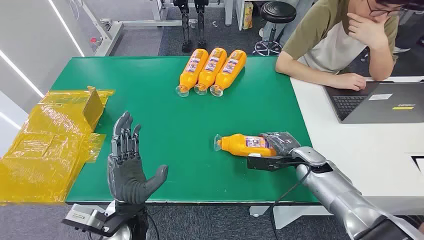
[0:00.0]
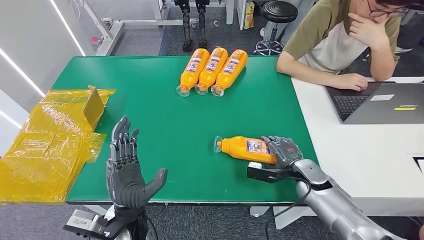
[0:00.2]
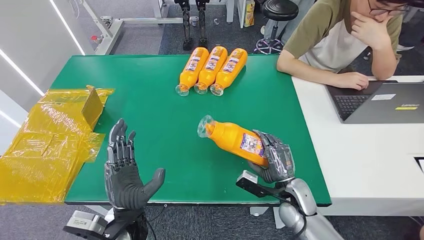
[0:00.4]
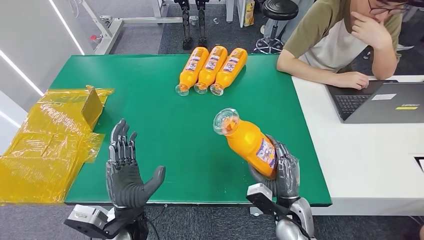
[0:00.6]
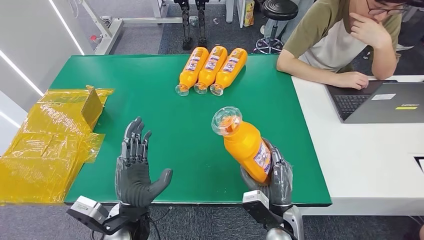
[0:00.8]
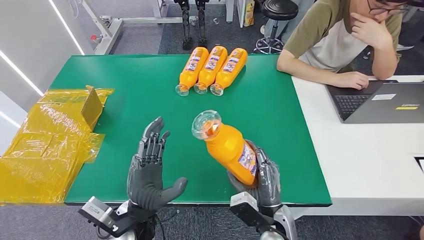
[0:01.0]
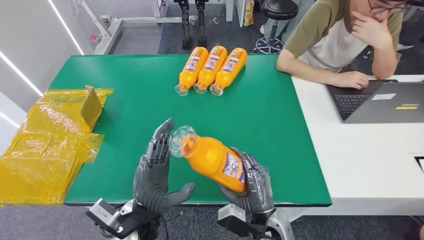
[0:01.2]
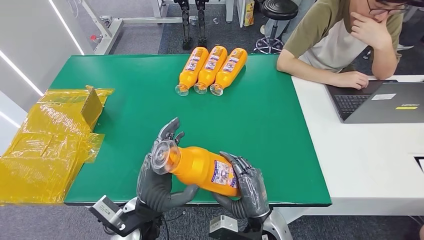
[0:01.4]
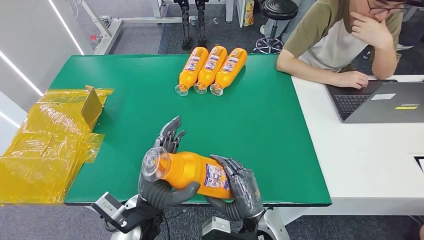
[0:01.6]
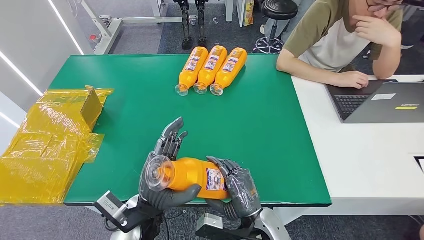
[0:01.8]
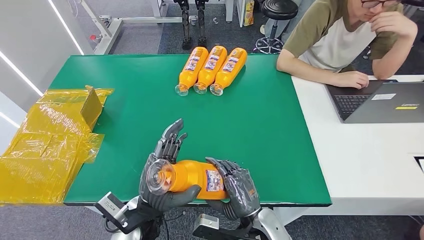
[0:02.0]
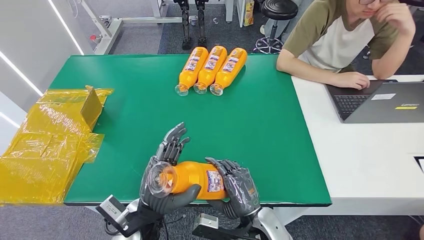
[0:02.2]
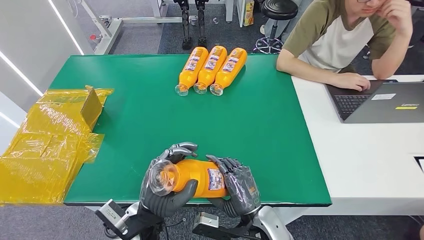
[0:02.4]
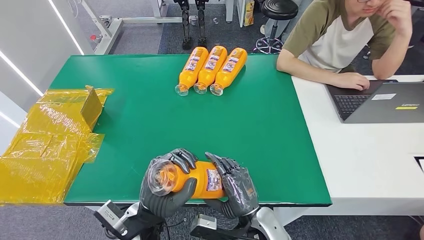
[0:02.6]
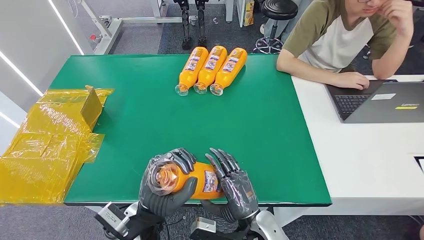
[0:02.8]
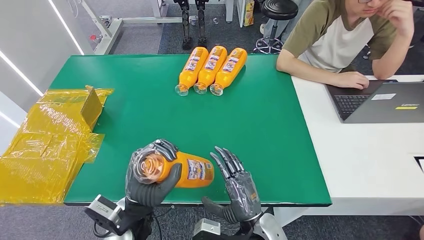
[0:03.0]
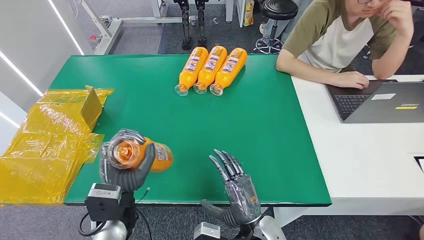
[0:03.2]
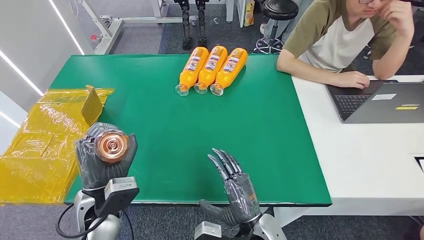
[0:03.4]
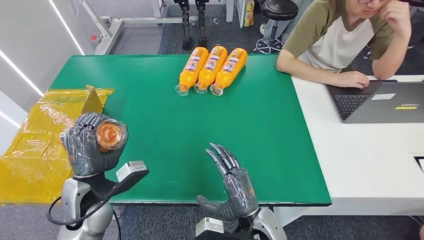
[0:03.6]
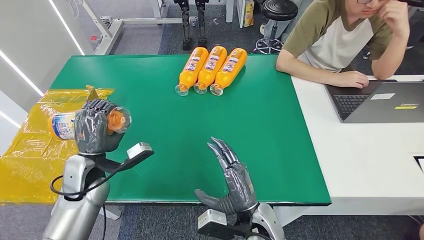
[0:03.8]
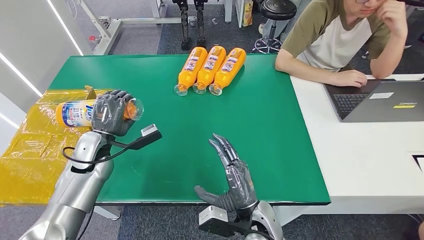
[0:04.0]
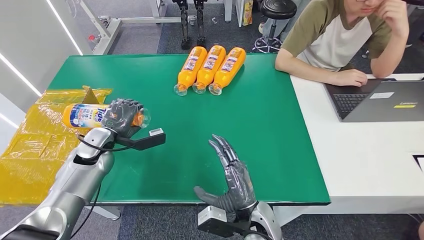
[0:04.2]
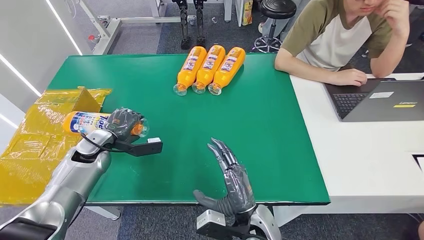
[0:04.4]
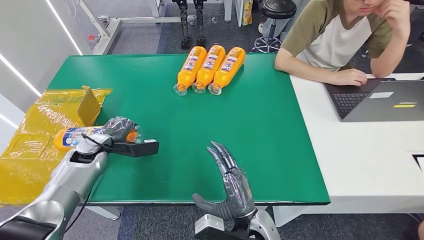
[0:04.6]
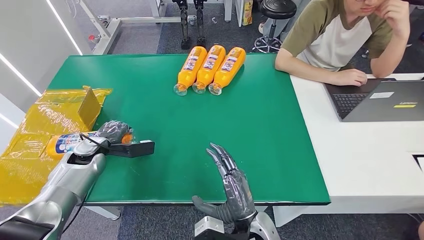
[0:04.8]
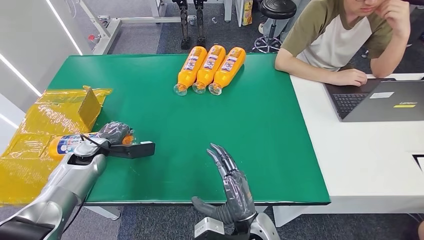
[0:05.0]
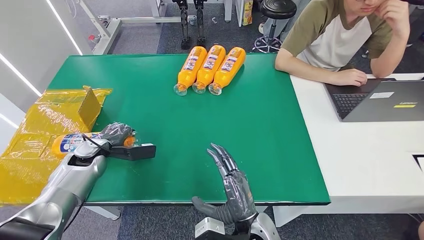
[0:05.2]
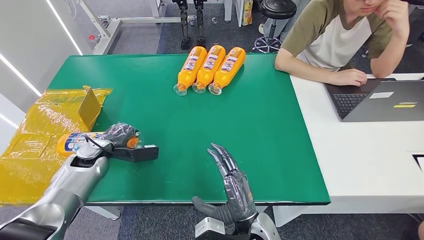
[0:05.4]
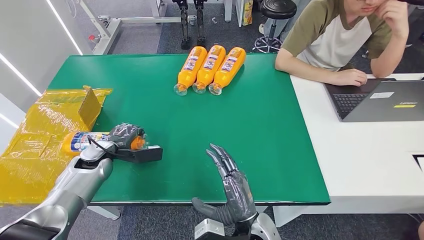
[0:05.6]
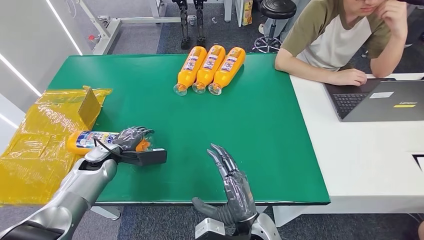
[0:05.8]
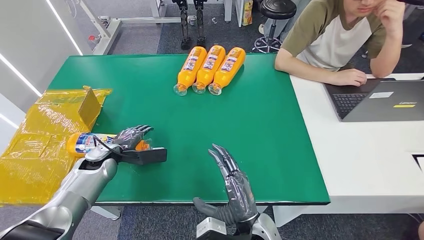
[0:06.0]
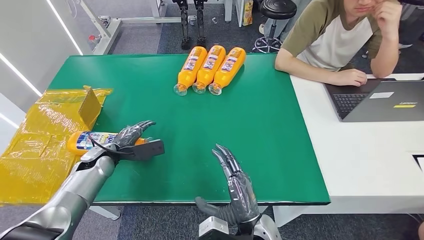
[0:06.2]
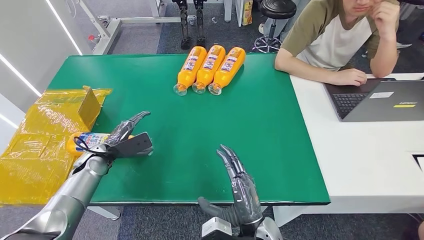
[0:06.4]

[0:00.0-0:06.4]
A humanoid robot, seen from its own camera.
Step, 0:00.0 to 0:01.6: Pick up the bottle from the table.
Step, 0:02.0 to 0:06.4: Turn the bottle to the front side.
0:03.2 to 0:04.8: The left hand goes some 25 cm to the left and forward.

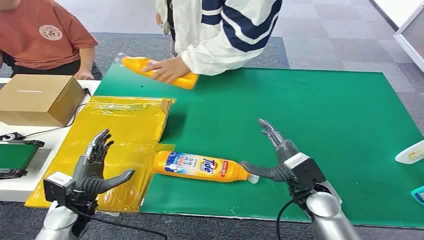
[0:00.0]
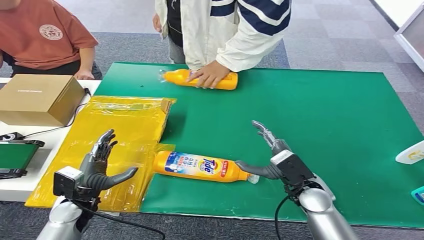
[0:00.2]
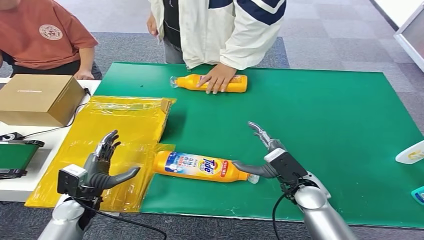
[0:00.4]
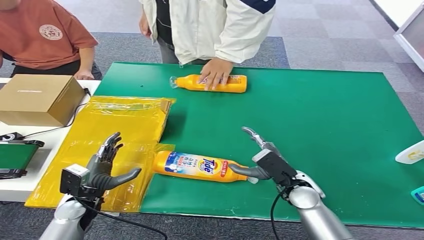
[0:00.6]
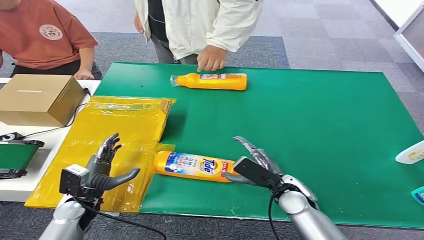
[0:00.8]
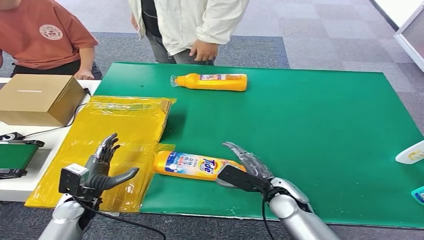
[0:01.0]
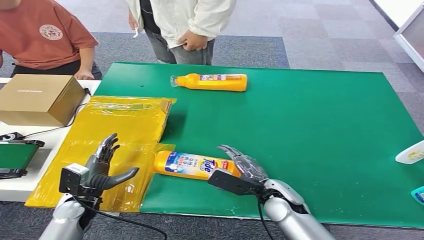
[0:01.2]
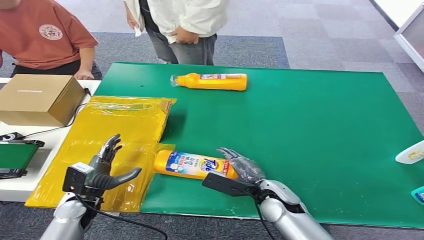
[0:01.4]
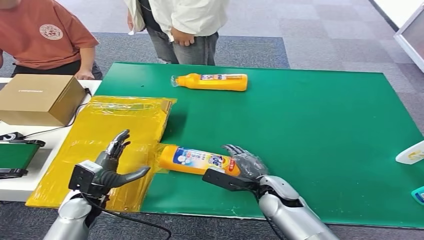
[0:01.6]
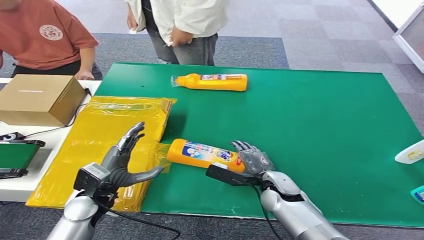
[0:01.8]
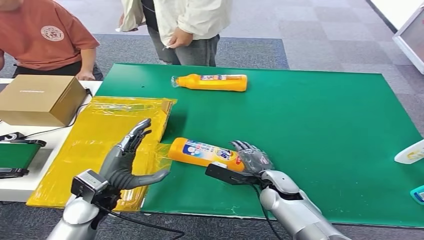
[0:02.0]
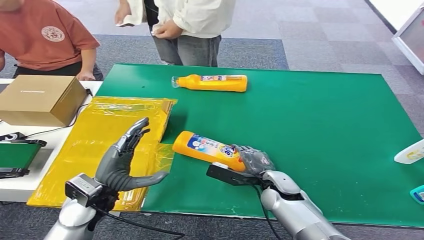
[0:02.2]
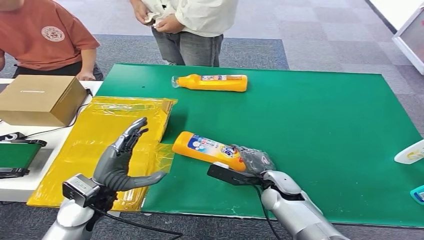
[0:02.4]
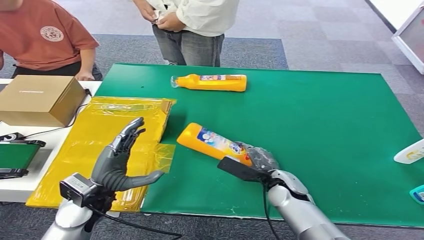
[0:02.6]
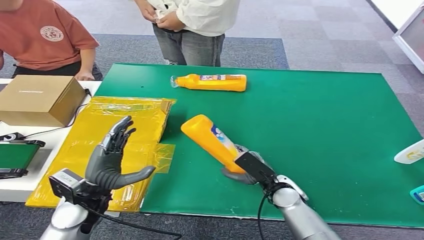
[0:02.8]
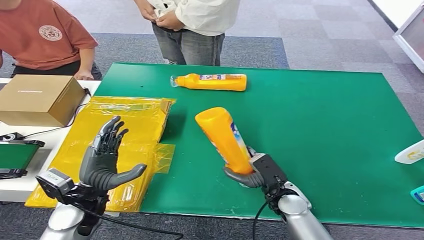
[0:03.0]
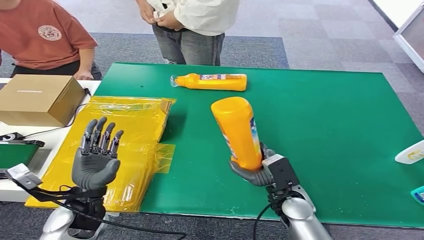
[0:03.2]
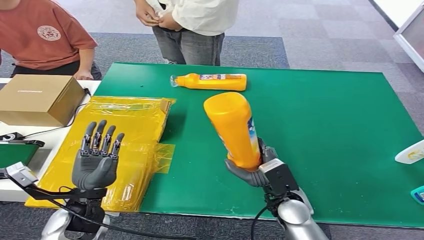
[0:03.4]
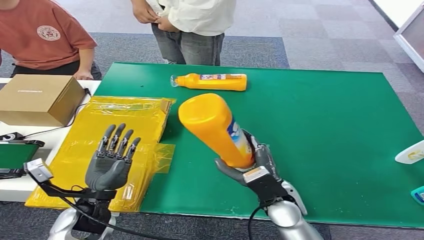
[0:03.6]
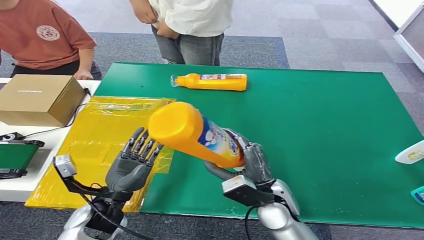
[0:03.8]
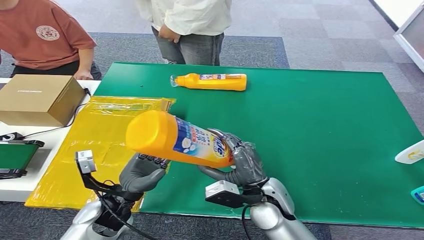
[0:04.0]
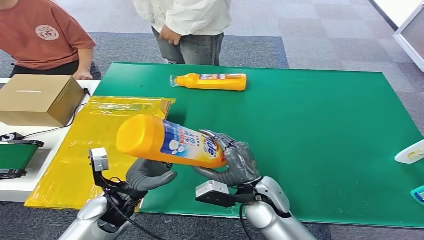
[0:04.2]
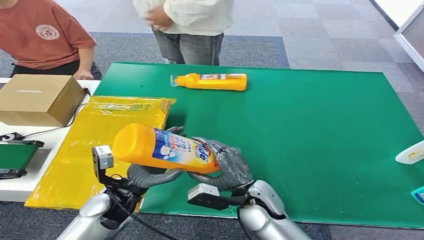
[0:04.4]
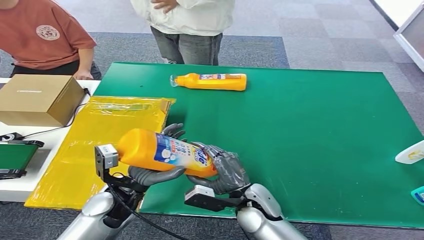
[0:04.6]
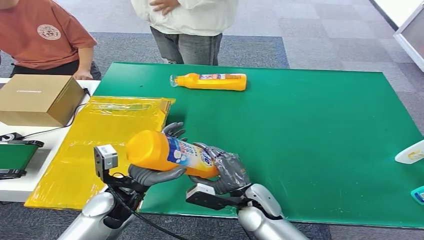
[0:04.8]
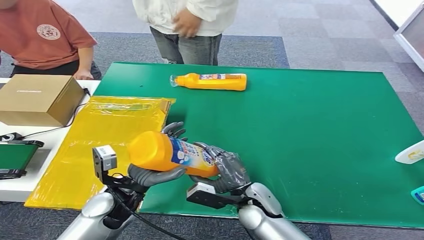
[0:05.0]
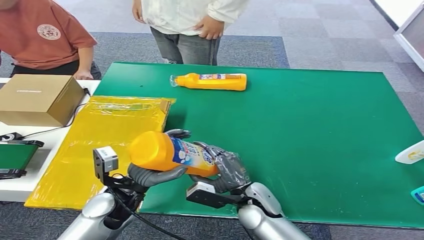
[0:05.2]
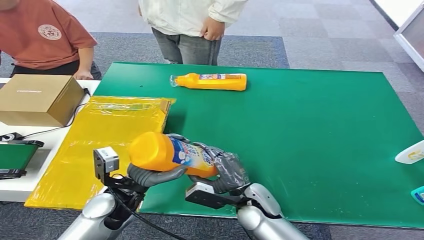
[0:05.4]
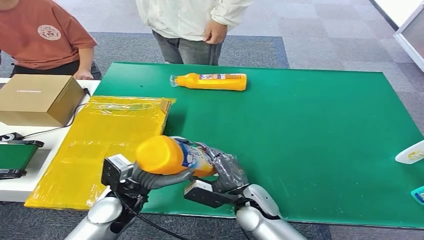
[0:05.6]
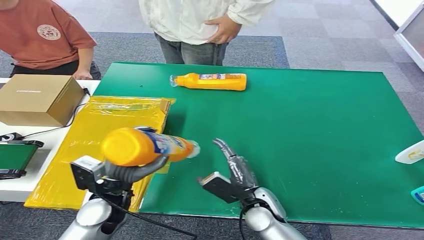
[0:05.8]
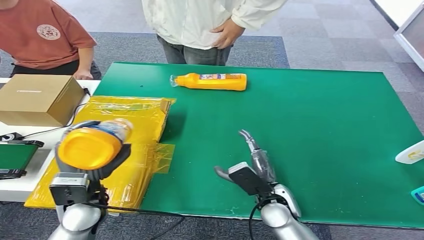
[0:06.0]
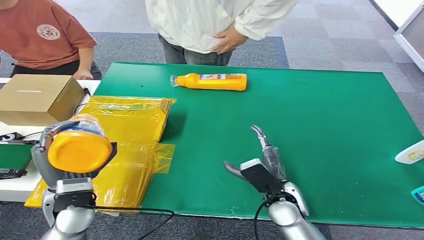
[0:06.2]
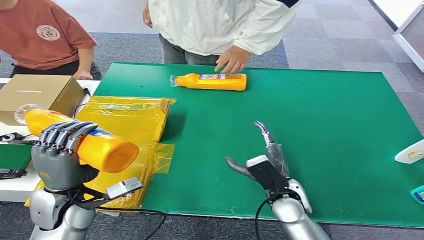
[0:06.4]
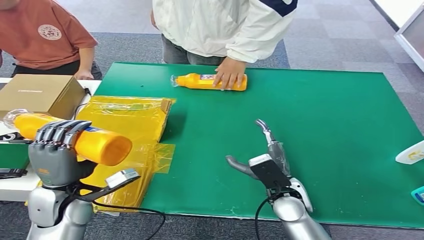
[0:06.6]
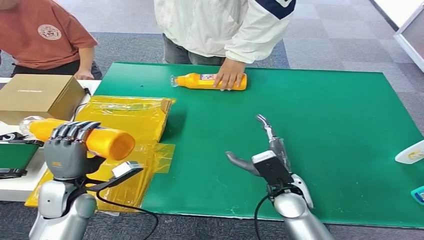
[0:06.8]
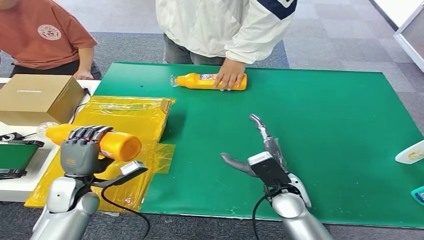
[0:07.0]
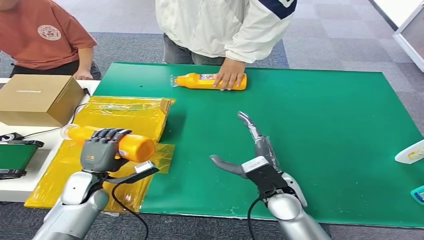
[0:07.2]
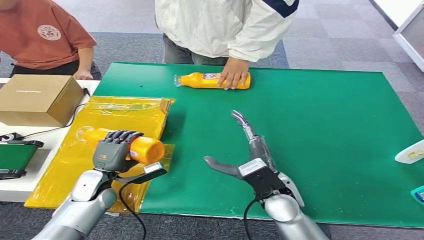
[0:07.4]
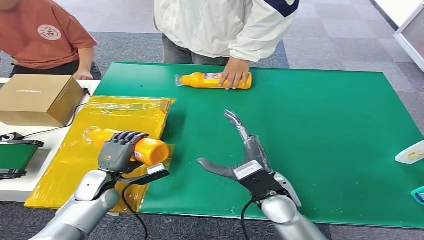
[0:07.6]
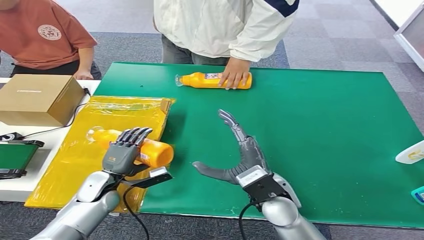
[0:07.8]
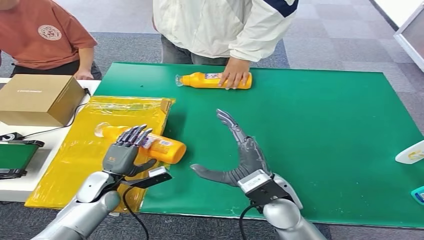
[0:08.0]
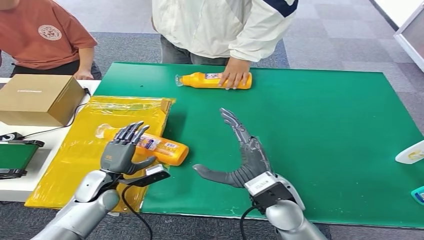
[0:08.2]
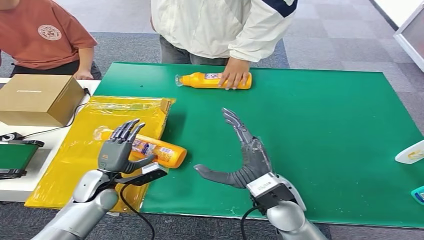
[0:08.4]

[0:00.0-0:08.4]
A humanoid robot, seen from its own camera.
Step, 0:00.0 to 0:03.0: Pick up the bottle from the table.
Step, 0:03.2 to 0:08.4: Turn the bottle to the front side.
0:01.4 to 0:02.8: The left hand goes roughly 10 cm upward and to the right.
0:04.2 to 0:05.6: The right hand is displaced downward by about 5 cm.
0:07.0 to 0:08.4: The right hand heads upward, covering approximately 5 cm. Meanwhile the left hand changes place by roughly 5 cm.
